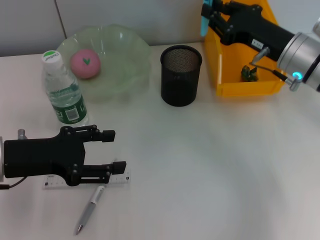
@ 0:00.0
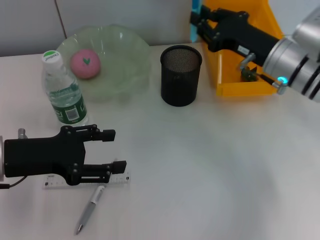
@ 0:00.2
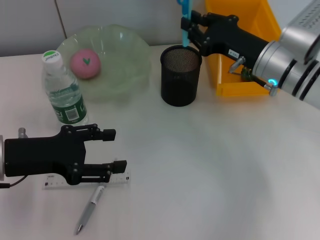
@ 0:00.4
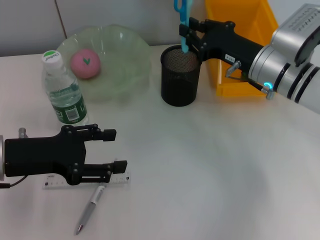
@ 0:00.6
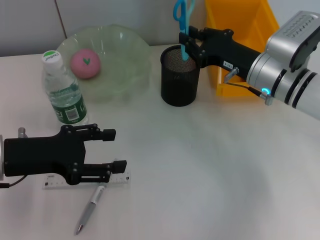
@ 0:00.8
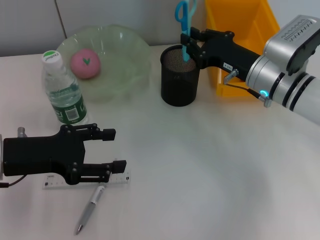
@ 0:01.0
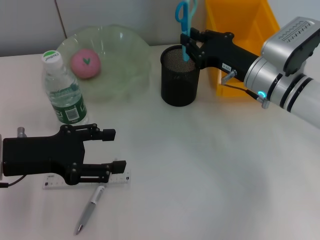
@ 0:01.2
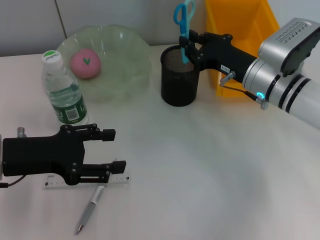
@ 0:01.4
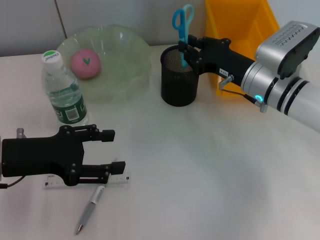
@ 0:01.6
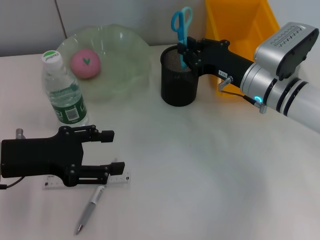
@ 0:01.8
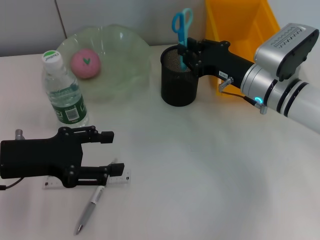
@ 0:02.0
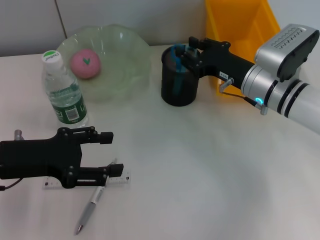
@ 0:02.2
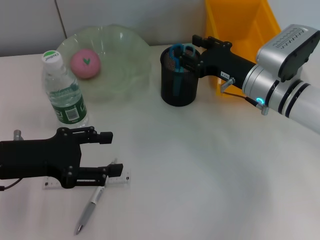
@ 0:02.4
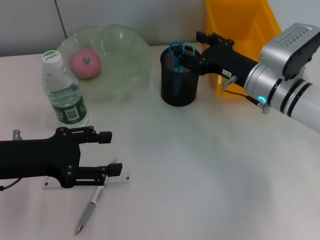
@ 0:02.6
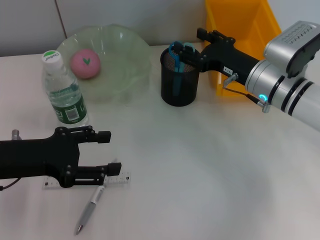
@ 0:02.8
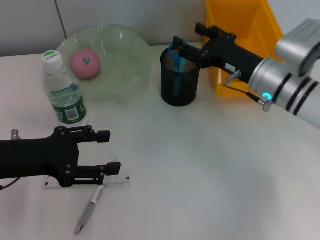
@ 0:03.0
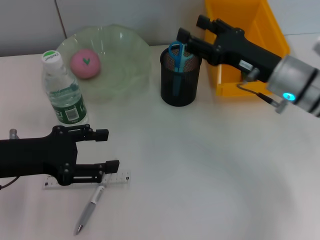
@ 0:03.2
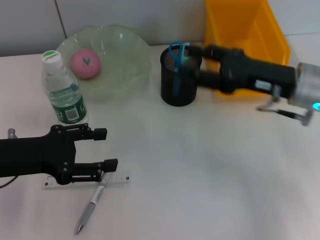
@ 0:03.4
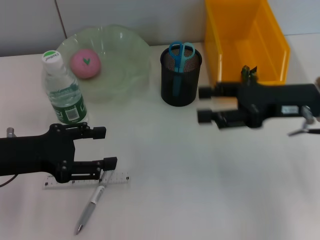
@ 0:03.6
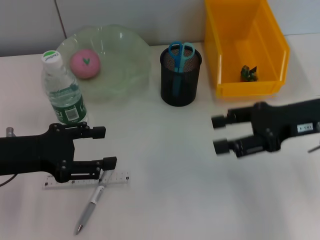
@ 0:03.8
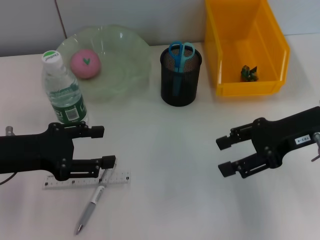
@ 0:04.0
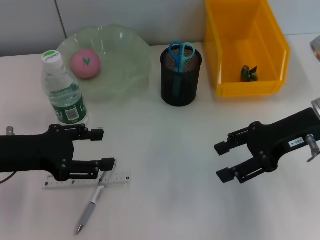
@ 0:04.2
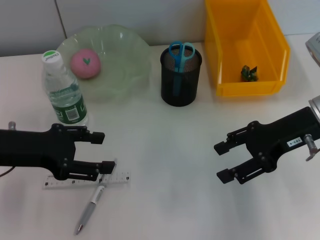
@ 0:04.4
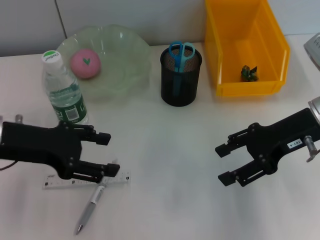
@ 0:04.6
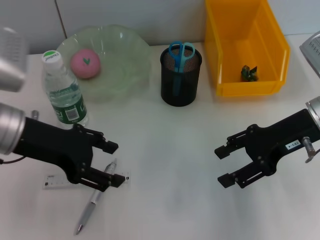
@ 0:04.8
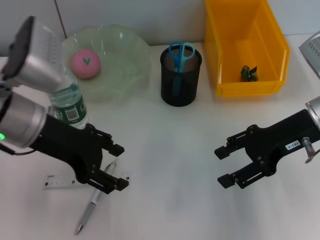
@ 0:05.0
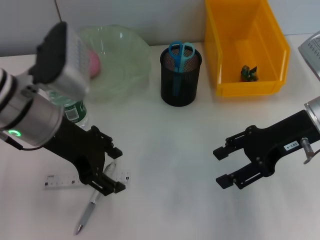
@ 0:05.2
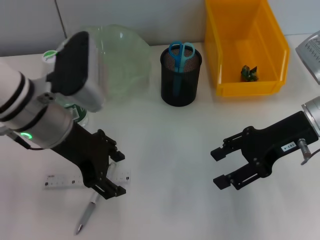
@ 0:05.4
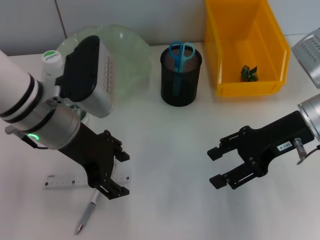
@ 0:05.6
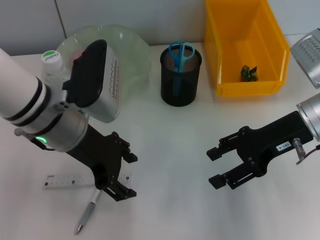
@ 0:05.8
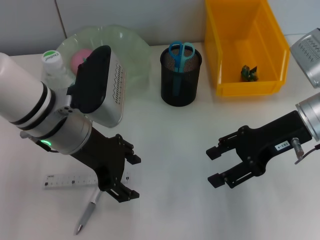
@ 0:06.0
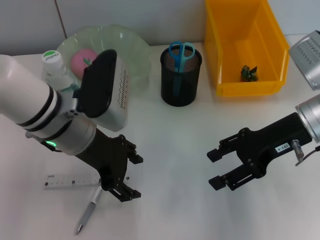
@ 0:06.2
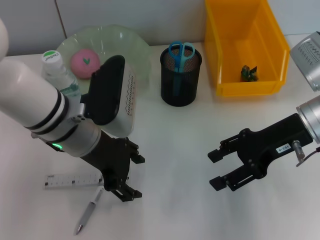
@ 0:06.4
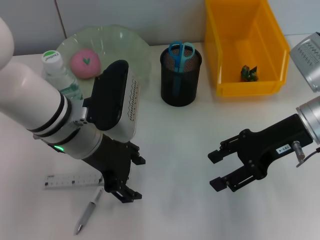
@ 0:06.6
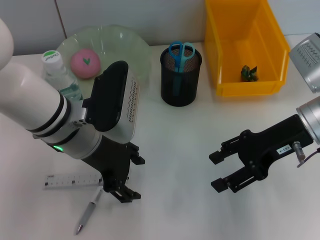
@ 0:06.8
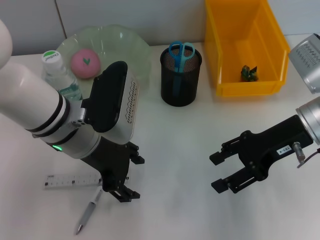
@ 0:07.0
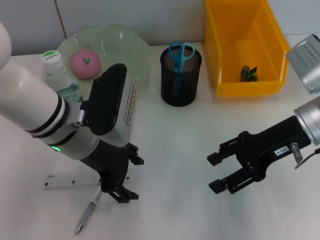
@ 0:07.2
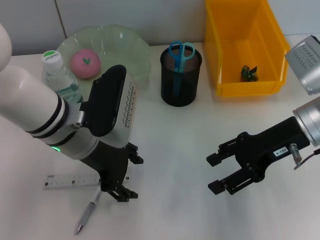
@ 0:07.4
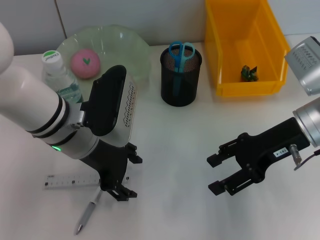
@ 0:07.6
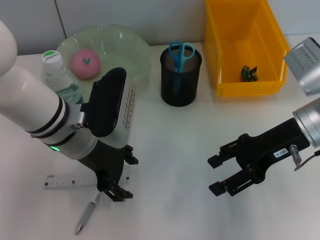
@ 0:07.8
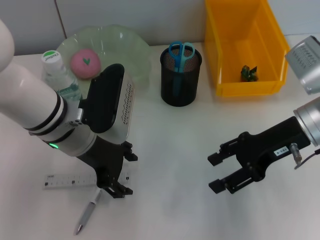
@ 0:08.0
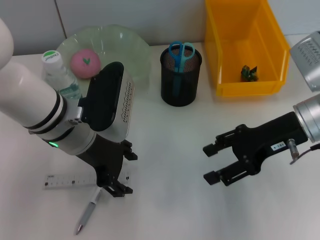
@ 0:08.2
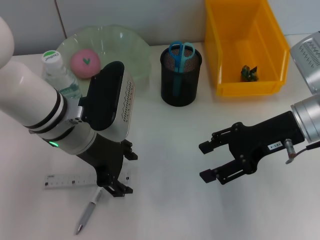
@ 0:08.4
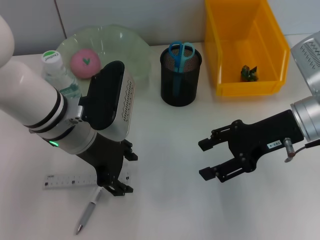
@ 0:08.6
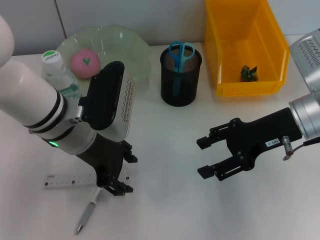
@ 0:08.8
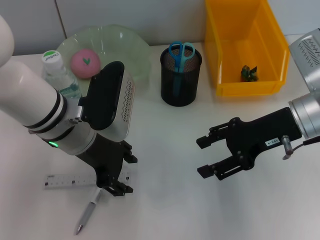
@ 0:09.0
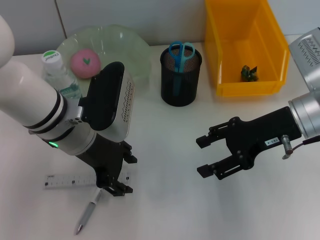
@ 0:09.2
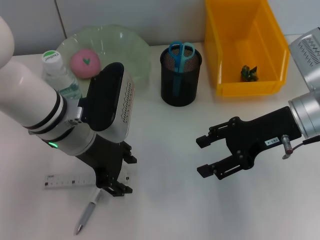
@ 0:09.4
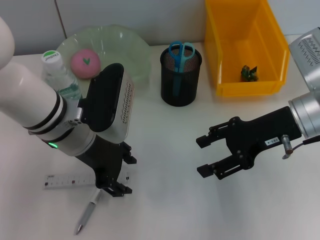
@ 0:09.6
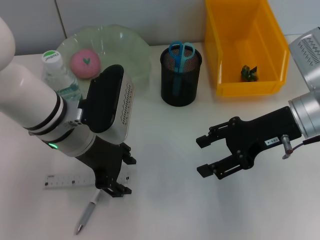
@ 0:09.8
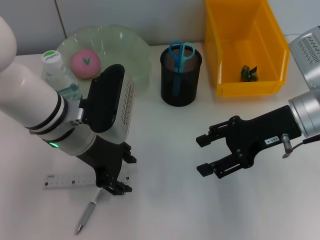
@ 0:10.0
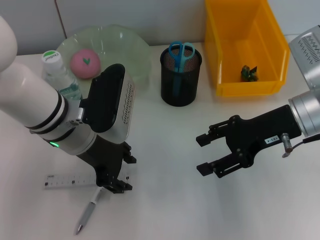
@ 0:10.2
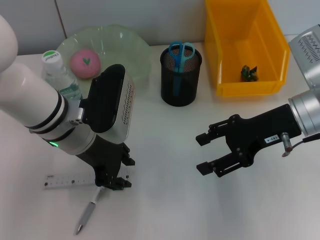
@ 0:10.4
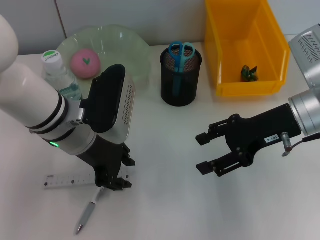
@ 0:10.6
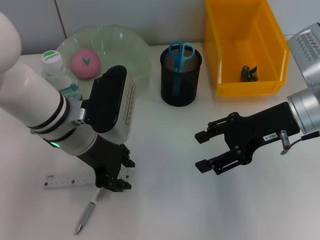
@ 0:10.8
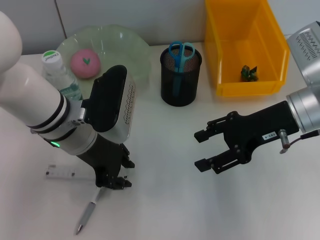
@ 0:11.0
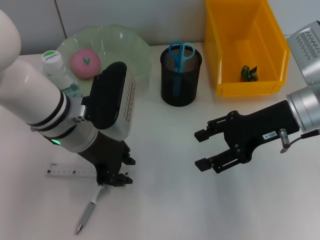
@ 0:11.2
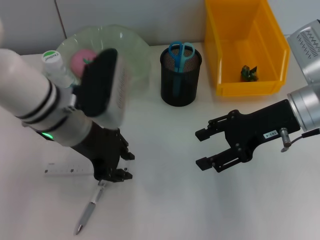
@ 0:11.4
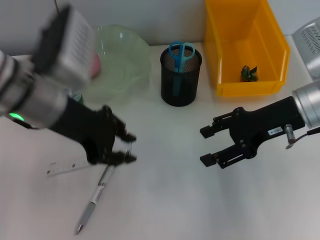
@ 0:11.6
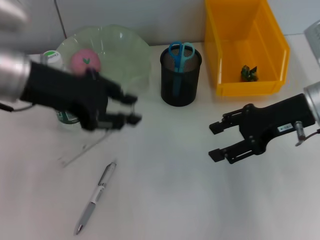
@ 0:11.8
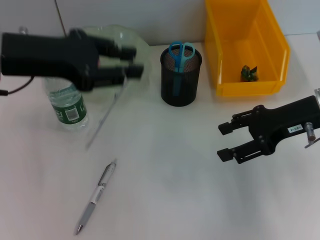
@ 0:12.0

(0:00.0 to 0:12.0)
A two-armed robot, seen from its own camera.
Step, 0:00.0 - 0:02.4: Place the blue scissors into the pen holder with the right hand.
Step, 0:02.6 - 0:11.0: Grab the ruler with the left hand.
0:00.0 - 0:01.6: The right gripper changes place by about 5 cm.
0:01.6 - 0:03.0: The right gripper opens up.
0:03.0 - 0:04.4: The right gripper shifts about 10 cm upward and to the right.
0:04.4 - 0:06.0: The left gripper goes roughly 10 cm to the right.
0:06.0 - 0:09.0: The grippers make only small movements.
0:09.0 - 0:10.4: Both grippers stay put.
0:10.4 - 0:12.0: The left gripper moves upward and to the left, approximately 15 cm.

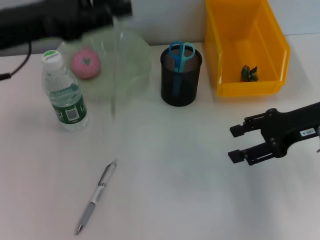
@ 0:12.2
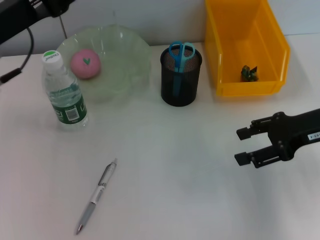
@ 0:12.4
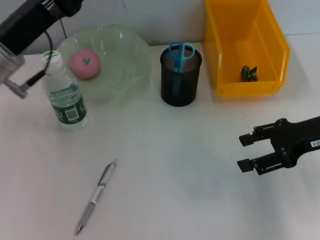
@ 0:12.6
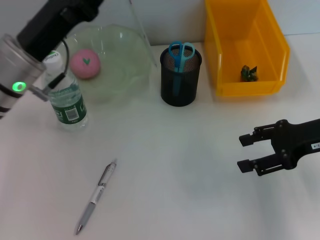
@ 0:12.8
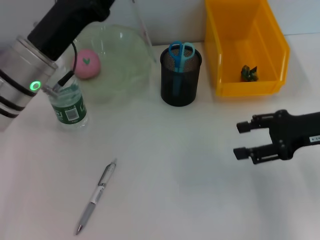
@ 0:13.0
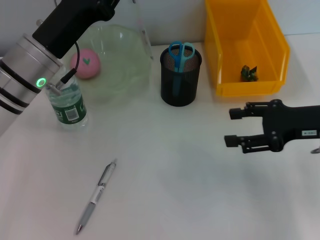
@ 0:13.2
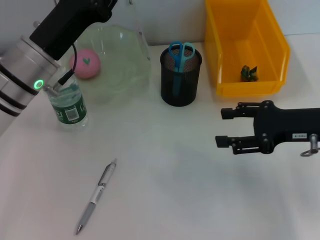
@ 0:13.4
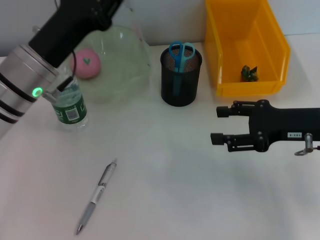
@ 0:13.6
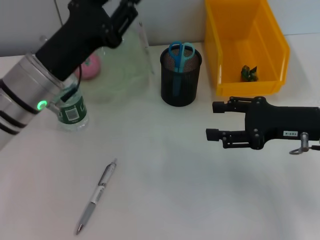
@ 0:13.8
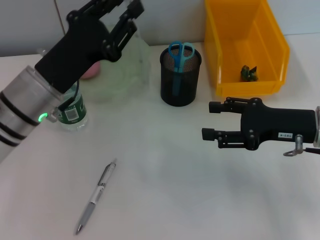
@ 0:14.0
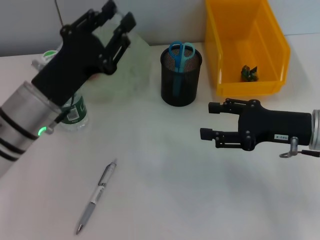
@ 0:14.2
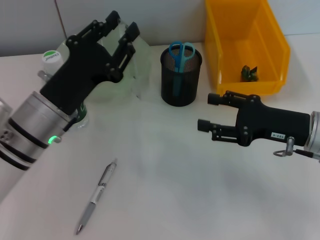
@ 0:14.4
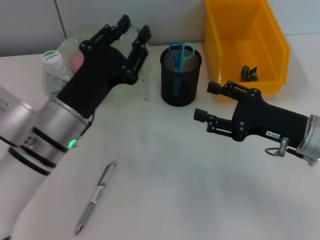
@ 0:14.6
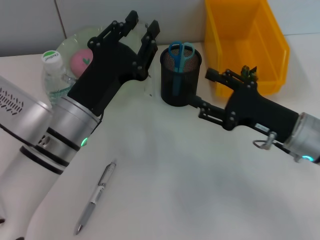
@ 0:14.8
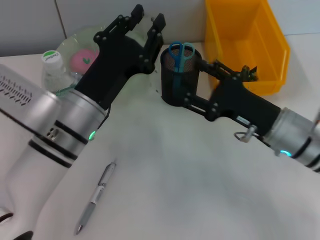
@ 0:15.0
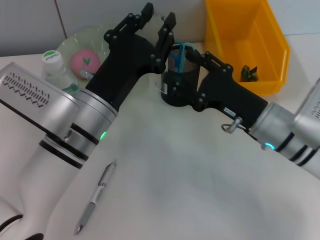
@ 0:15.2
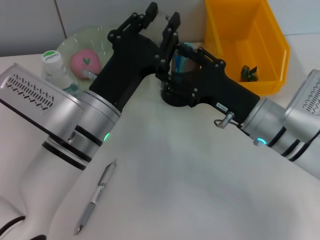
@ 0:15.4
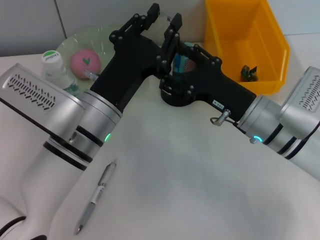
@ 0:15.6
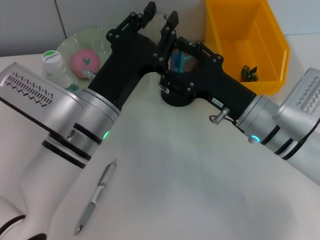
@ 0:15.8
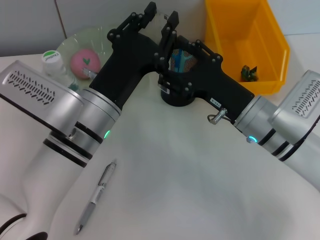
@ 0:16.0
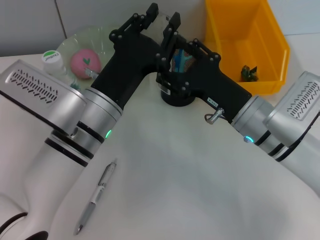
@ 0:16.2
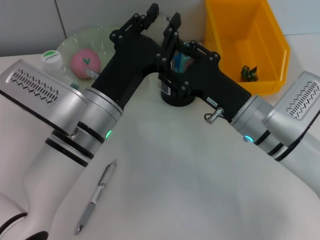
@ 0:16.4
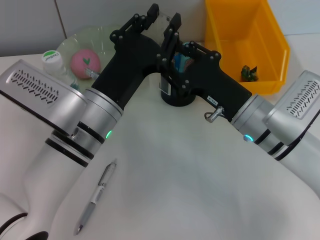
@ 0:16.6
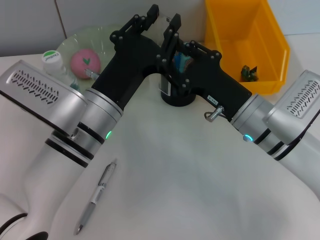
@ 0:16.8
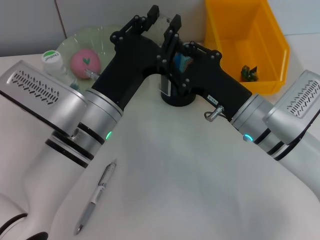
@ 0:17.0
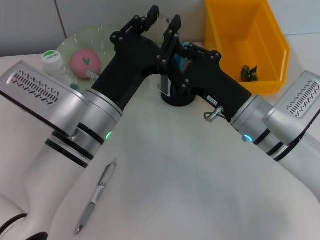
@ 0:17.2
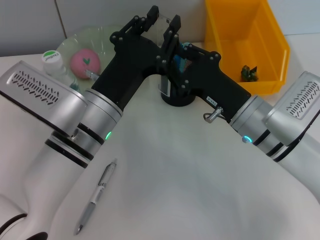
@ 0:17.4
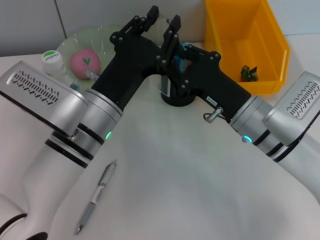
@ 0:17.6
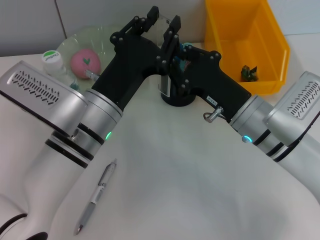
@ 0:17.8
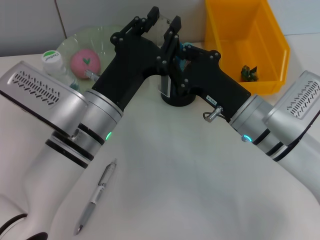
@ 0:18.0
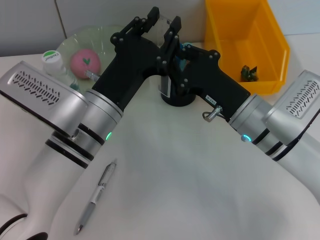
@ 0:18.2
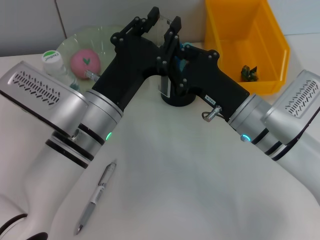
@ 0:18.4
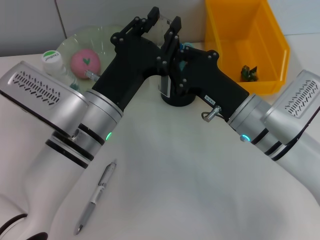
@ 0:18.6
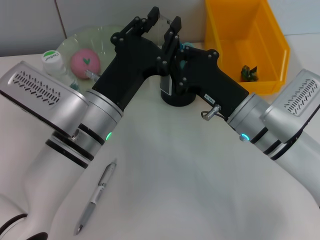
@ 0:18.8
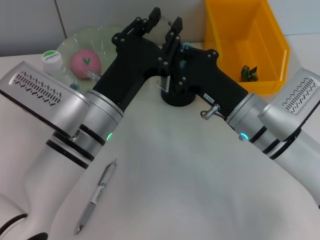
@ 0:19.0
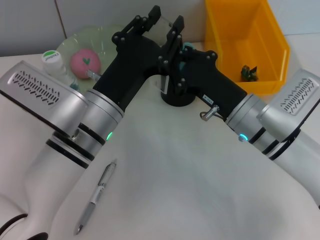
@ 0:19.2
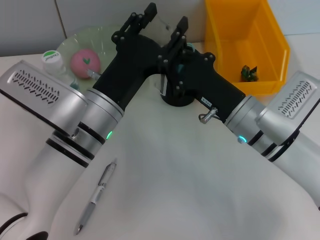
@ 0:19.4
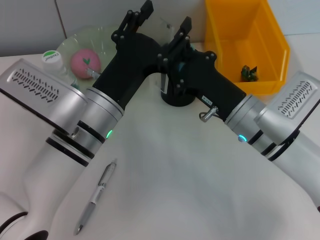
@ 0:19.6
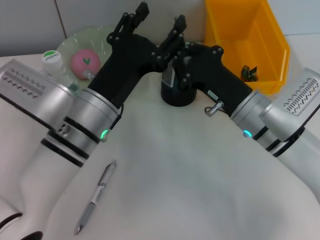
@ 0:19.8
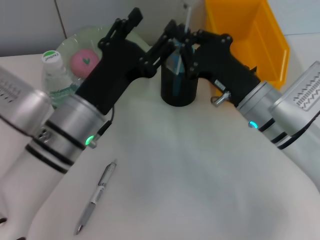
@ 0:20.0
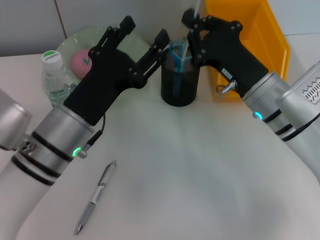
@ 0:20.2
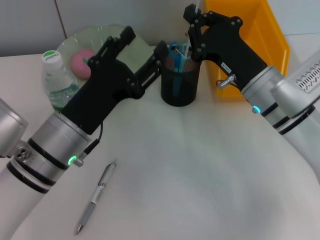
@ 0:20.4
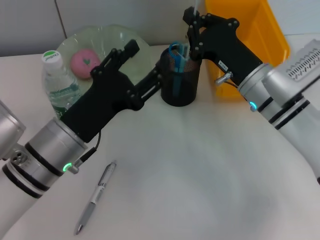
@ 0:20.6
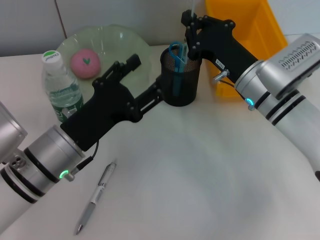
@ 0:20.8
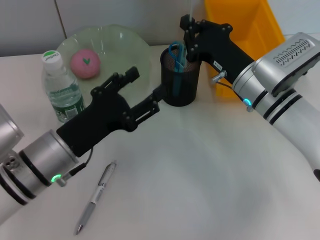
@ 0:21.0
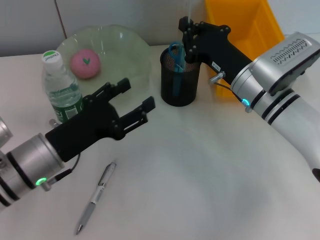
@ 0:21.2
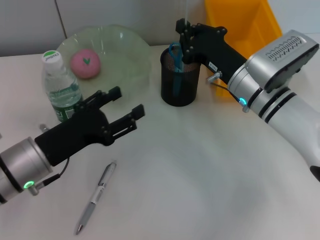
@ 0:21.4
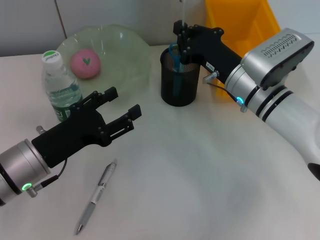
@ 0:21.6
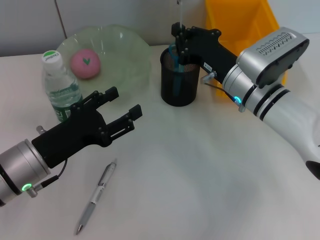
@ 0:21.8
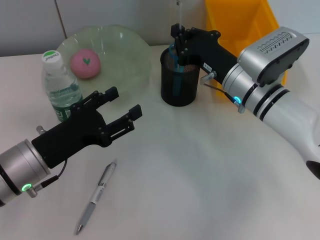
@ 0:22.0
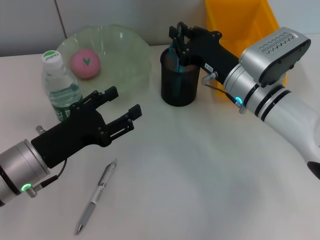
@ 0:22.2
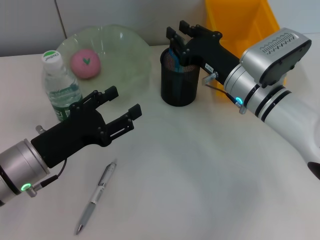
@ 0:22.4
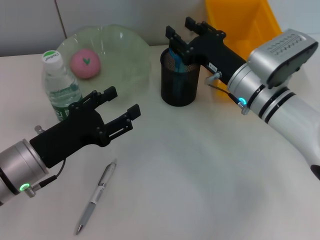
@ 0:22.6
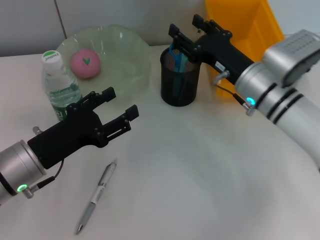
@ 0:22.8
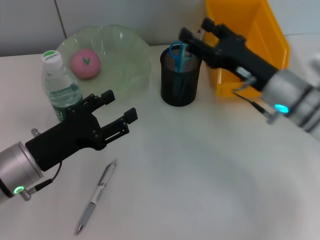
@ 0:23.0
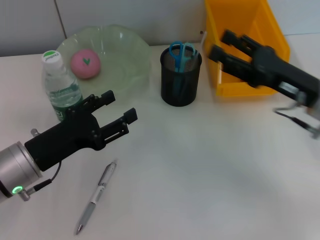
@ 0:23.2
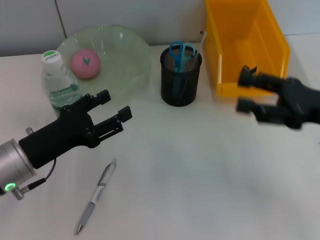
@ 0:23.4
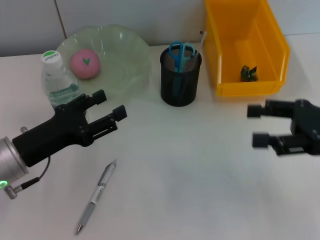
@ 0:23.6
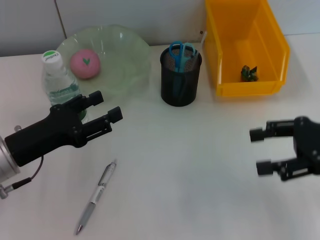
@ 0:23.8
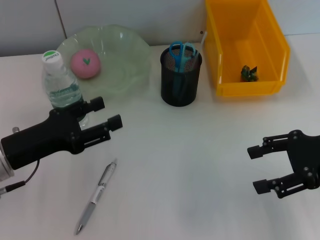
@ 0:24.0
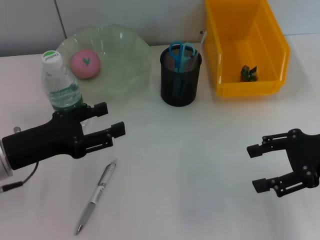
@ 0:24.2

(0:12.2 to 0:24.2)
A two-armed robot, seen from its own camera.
Step, 0:12.2 - 0:19.6: Pass the ruler from the left hand to the right hand.
Step, 0:19.8 - 0:22.4: Place the ruler into the pen holder with the right hand.
0:12.2 - 0:13.8: The left gripper travels downward and to the right by roughly 10 cm.
0:13.8 - 0:15.2: The left gripper is displaced to the right by roughly 5 cm; the right gripper shifts some 10 cm to the left.
0:15.2 - 0:16.6: The grippers make only small movements.
0:16.6 - 0:18.2: The right gripper closes its fingers.
0:18.2 - 0:19.8: There are only small adjustments of the grippers.
0:19.8 - 0:21.2: The left gripper shifts about 10 cm to the left.
0:21.2 - 0:22.6: The right gripper opens up.
0:22.6 - 0:24.2: The right gripper travels to the right, backward and upward by roughly 20 cm, and opens its fingers.
